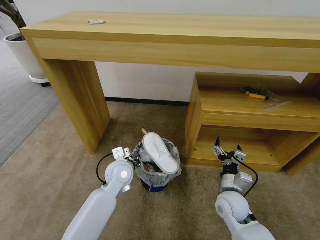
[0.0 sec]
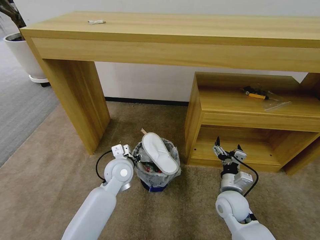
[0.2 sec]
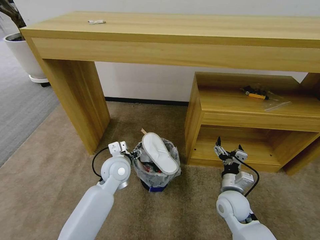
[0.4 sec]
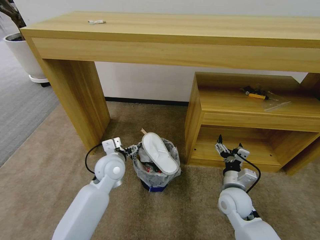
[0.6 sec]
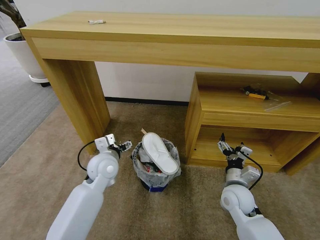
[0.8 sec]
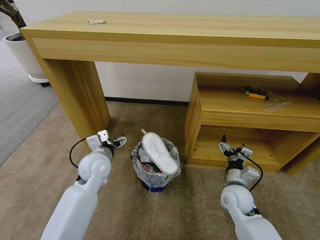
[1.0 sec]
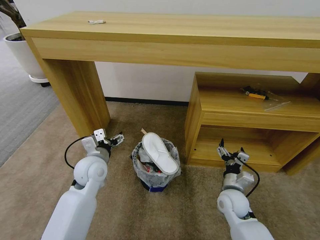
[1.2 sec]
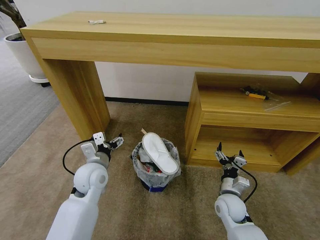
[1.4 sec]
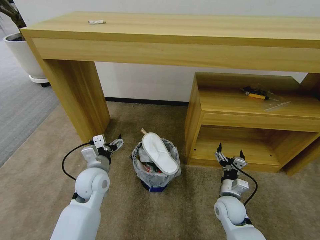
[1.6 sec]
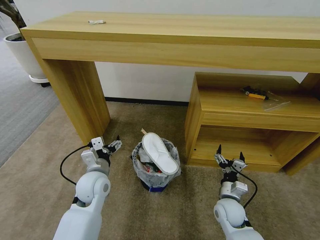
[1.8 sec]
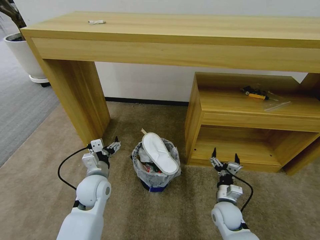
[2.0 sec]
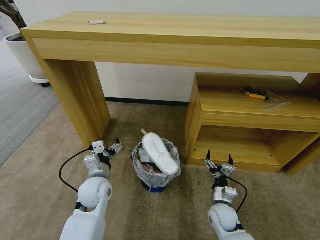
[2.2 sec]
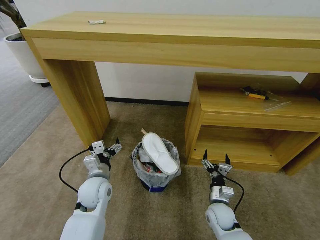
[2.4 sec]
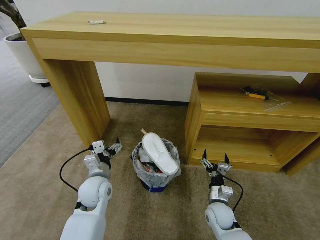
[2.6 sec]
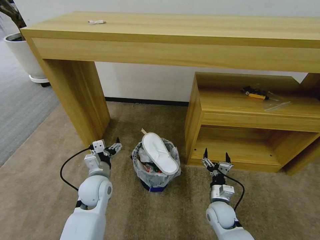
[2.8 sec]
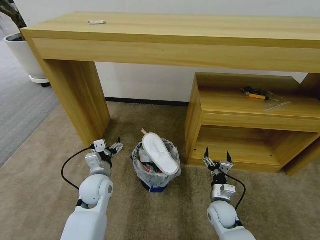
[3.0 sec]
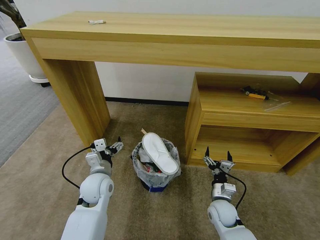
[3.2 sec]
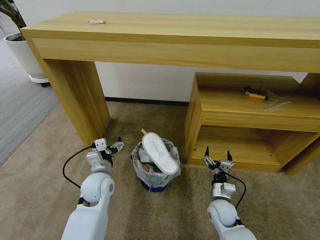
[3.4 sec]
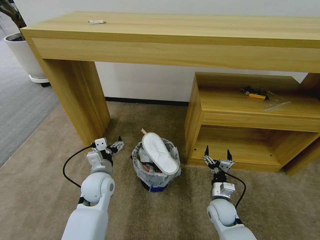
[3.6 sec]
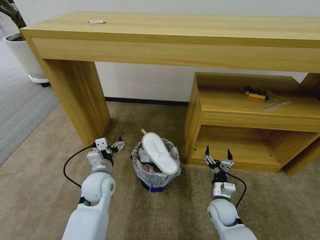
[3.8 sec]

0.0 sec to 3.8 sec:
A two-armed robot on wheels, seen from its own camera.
Task of the whole recording: Pick up the trash bin and place the garbage on the floor into it.
0.0 sec to 1.2 sec: The left gripper shifts approximately 10 cm to the left, and opens its fingers.
1.2 sec to 2.6 sec: Both grippers move downward, about 5 cm.
2.6 sec to 3.8 sec: There are only small adjustments of the grippers.
